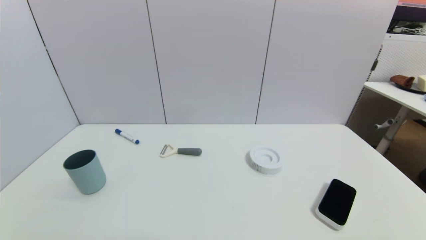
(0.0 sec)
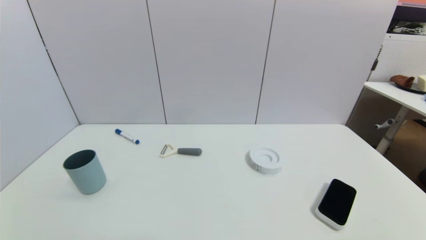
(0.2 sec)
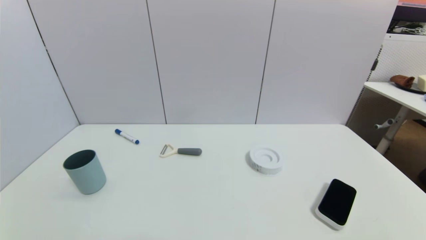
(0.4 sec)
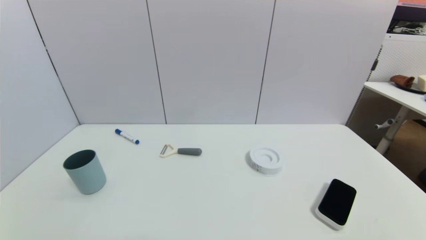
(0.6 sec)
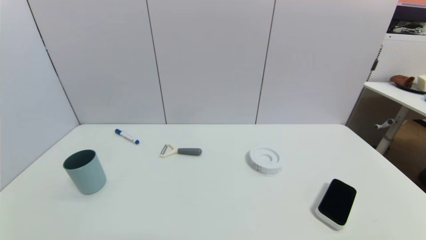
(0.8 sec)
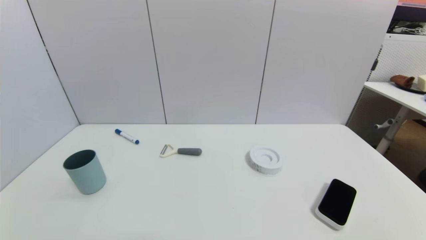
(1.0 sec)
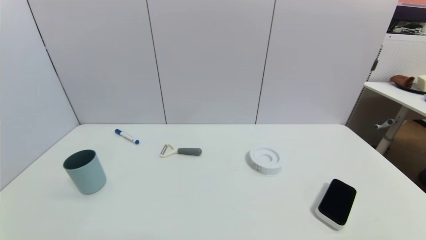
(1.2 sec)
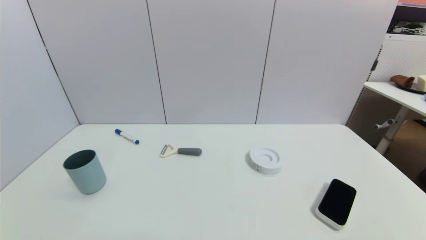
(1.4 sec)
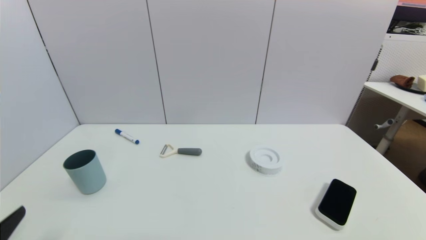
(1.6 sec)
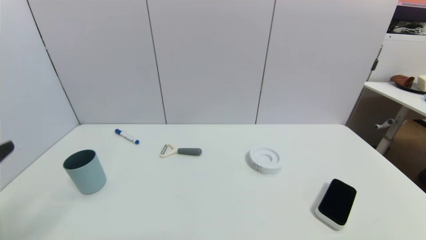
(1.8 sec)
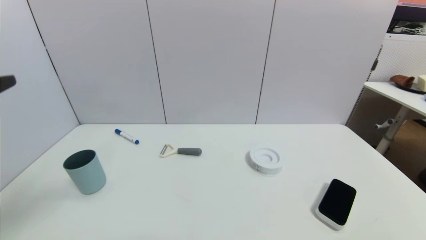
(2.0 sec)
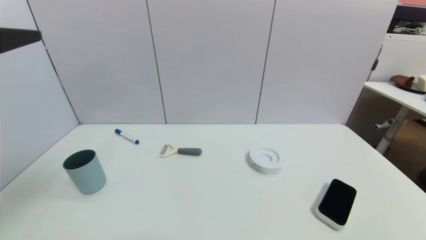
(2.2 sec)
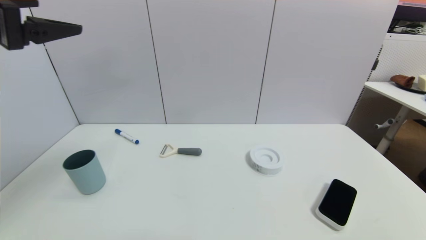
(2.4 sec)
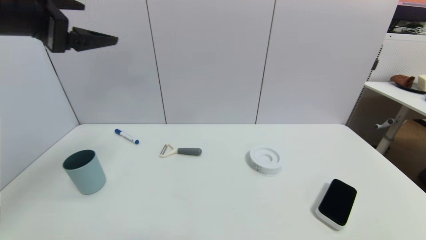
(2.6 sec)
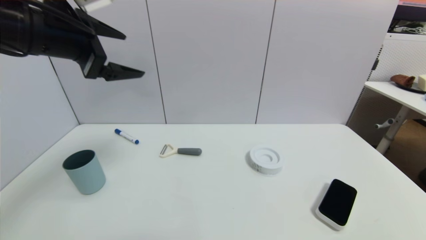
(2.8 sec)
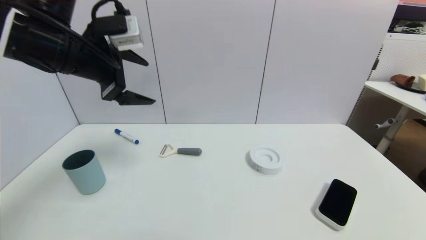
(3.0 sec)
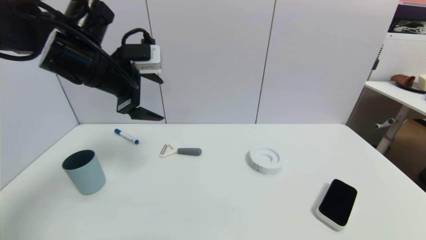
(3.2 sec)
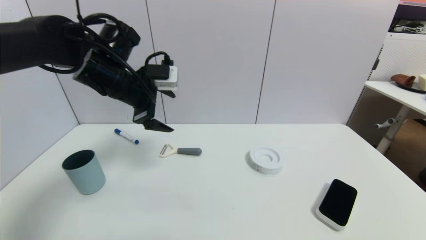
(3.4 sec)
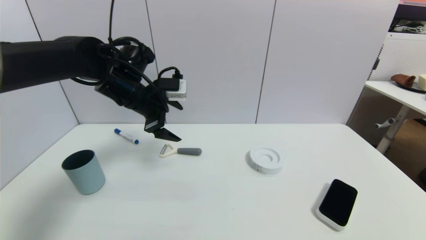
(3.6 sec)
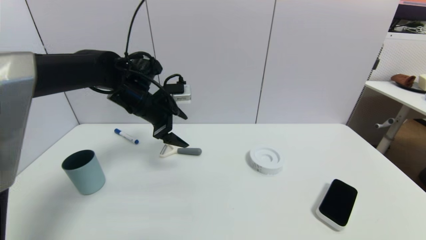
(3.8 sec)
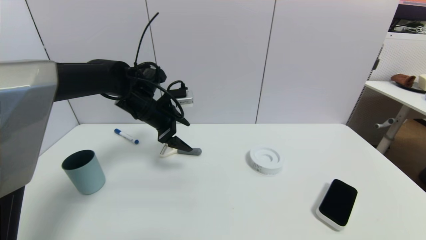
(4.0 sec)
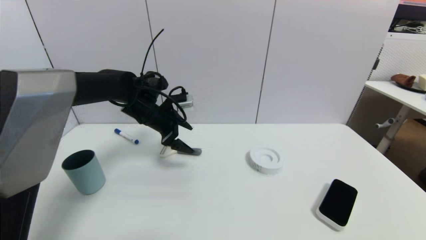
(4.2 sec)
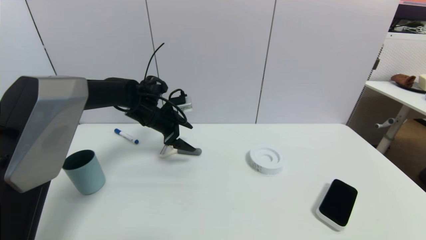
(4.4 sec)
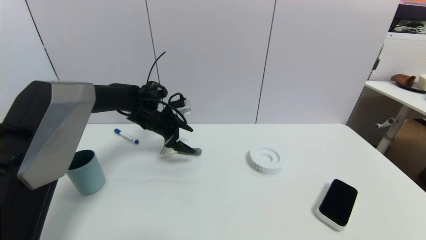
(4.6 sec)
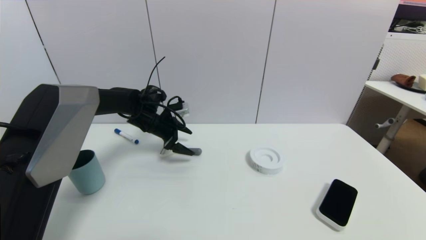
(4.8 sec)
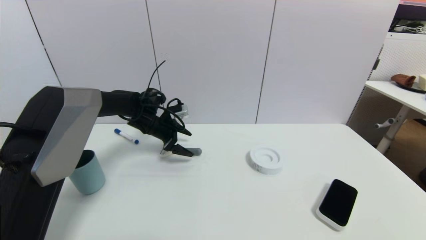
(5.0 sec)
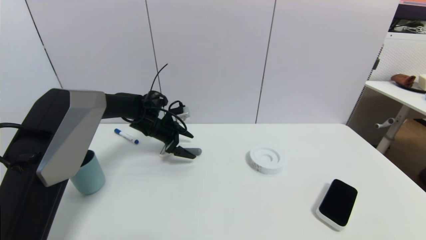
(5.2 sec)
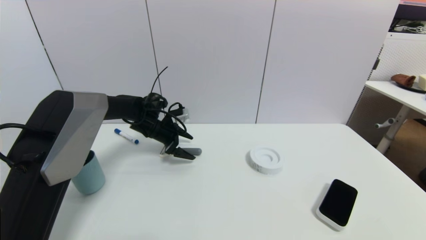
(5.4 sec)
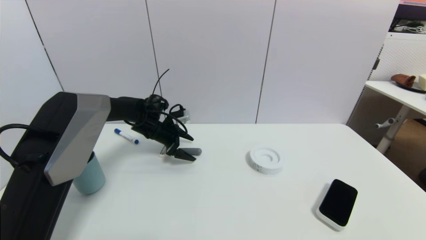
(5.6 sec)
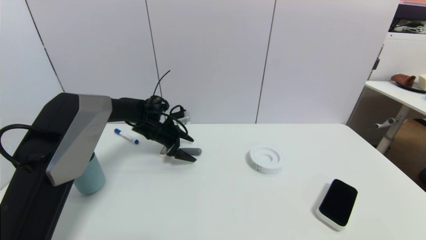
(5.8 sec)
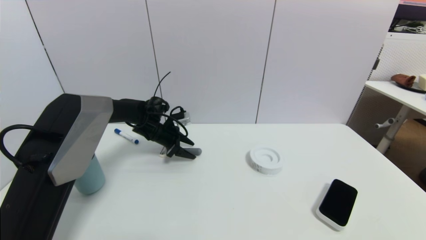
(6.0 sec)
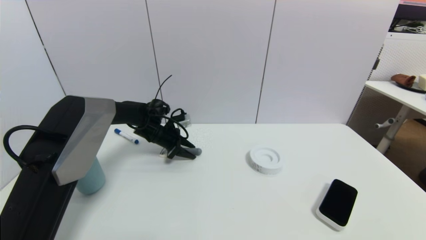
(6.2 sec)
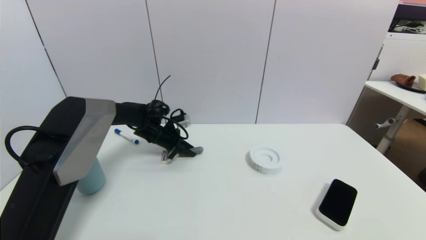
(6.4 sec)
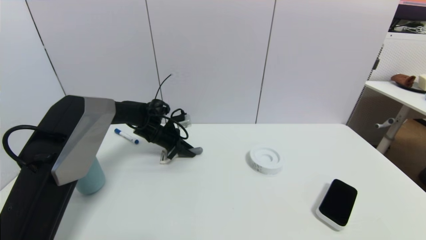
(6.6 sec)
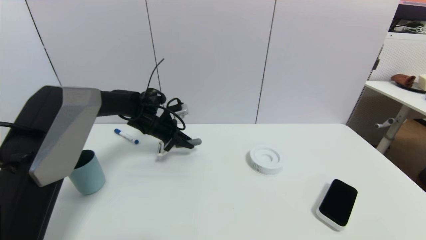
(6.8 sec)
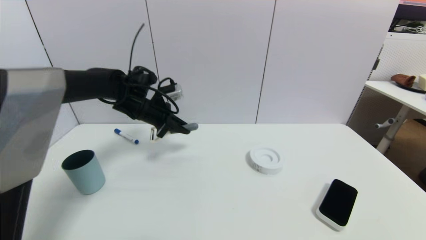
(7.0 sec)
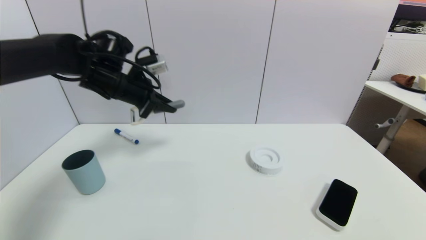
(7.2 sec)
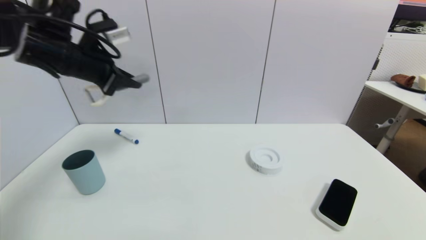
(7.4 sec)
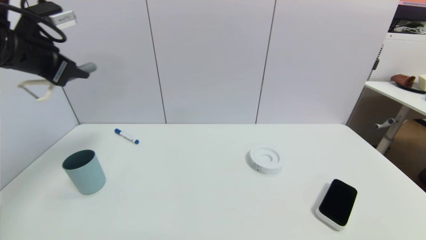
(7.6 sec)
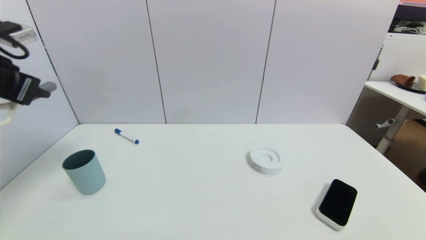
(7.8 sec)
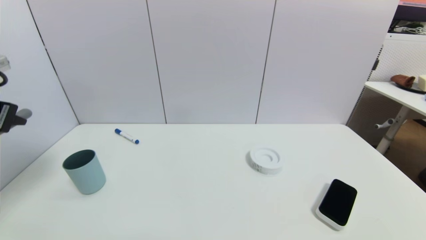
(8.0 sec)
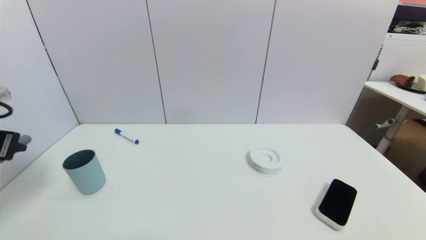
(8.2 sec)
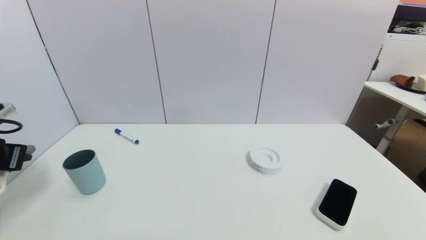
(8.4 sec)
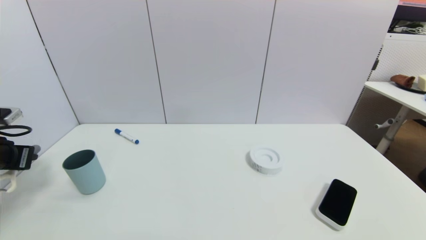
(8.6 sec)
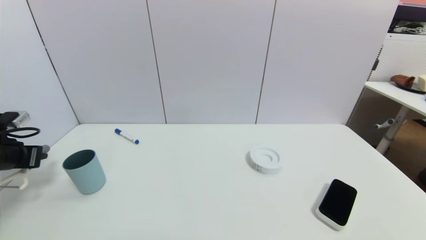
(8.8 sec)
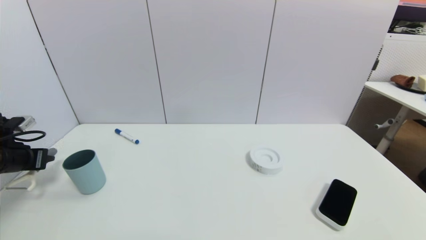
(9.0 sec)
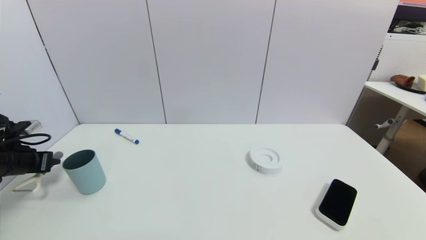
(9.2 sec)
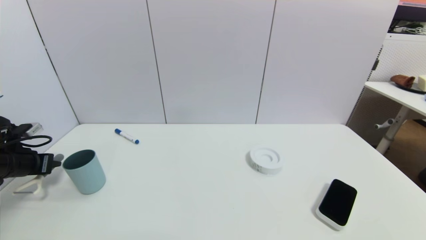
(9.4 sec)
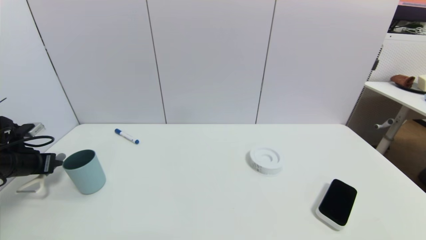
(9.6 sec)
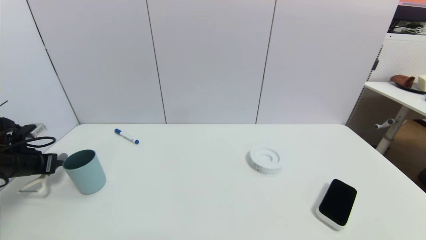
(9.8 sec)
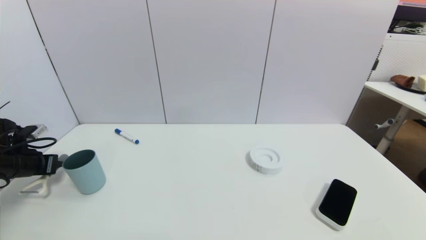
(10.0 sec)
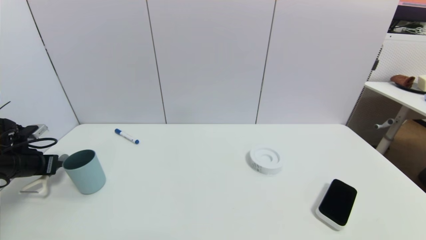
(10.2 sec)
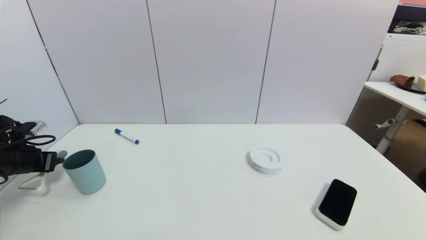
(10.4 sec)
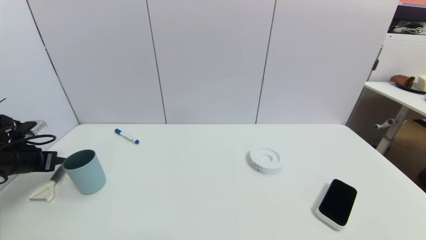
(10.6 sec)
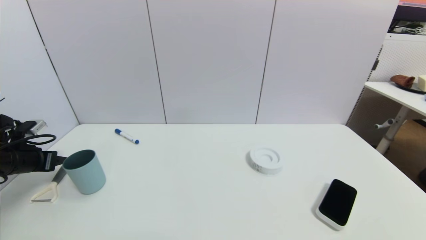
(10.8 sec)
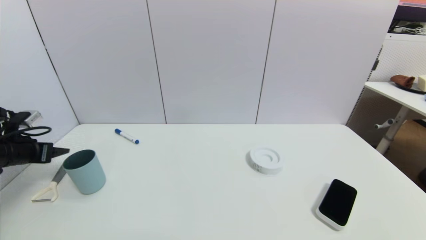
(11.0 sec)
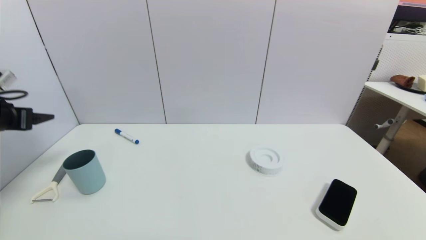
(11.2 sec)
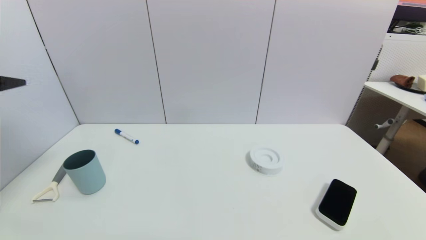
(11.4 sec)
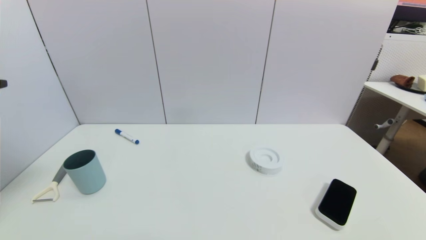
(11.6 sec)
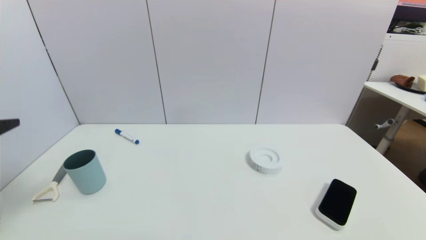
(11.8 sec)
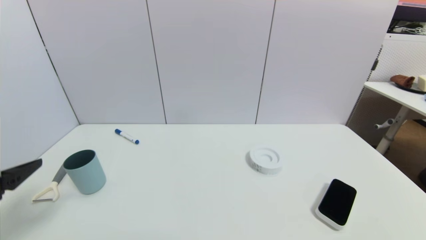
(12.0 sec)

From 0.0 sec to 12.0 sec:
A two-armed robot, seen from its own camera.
Step, from 1.6 sec to 6.8 sec: Grasp the peeler with left gripper.
Step, from 7.0 sec to 10.8 sec: Place the peeler on the table with left gripper.
From 1.6 sec to 3.0 sec: The left gripper heads forward and upward, covering about 30 cm.
From 3.0 sec to 4.4 sec: The left gripper travels downward and forward by about 20 cm.
From 4.4 sec to 6.0 sec: The left gripper is displaced downward by some 5 cm, and closes up.
From 6.0 sec to 7.6 sec: The left gripper travels upward, backward and to the left by approximately 35 cm, and closes its fingers.
From 7.6 sec to 9.0 sec: The left gripper heads downward and to the left, covering some 25 cm.
From 9.0 sec to 10.4 sec: The grippers stay close to where they were, moving slightly.
From 10.4 sec to 12.0 sec: The left gripper heads backward, to the right and upward, covering roughly 25 cm, and opens its fingers.

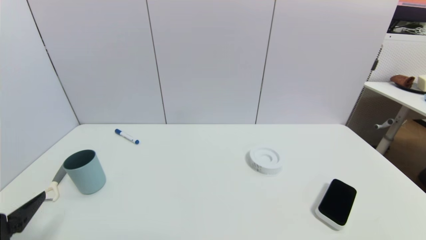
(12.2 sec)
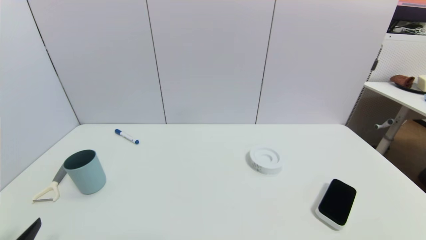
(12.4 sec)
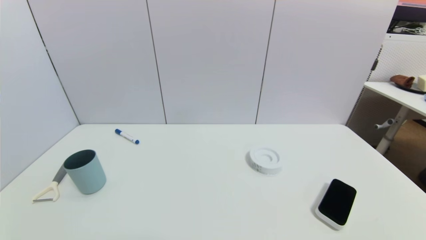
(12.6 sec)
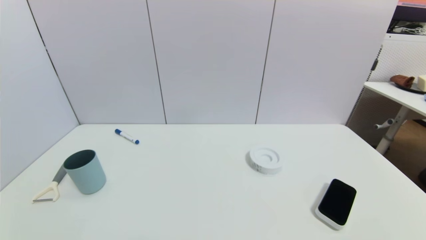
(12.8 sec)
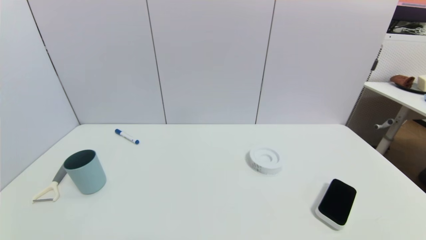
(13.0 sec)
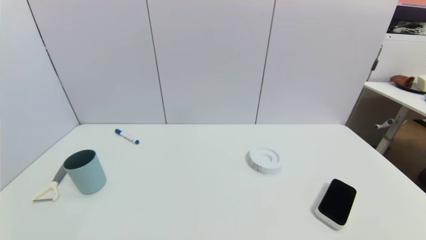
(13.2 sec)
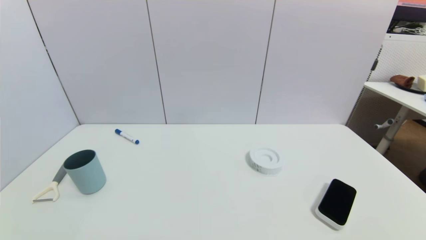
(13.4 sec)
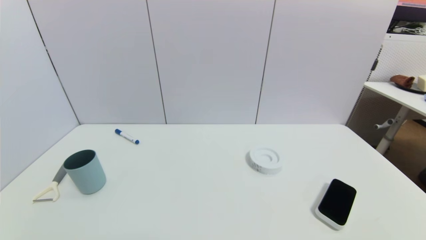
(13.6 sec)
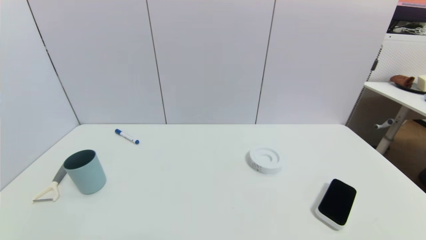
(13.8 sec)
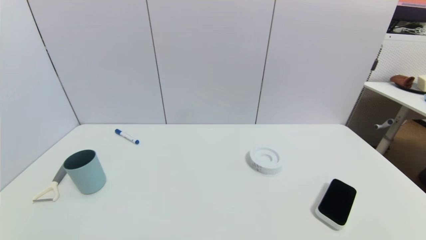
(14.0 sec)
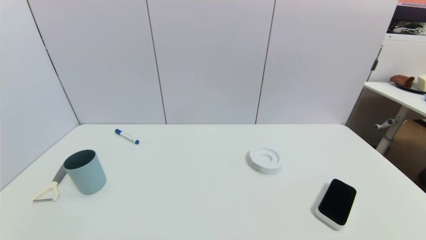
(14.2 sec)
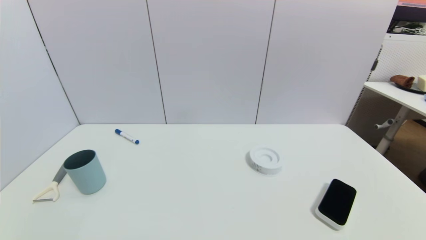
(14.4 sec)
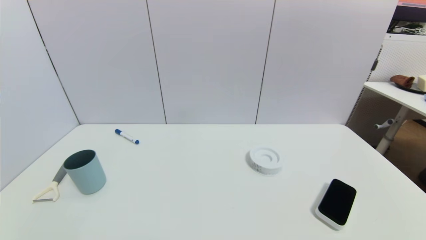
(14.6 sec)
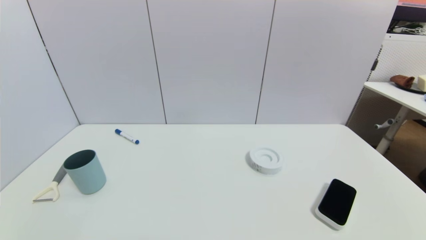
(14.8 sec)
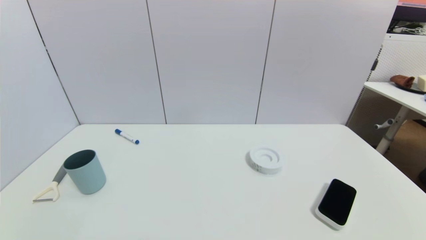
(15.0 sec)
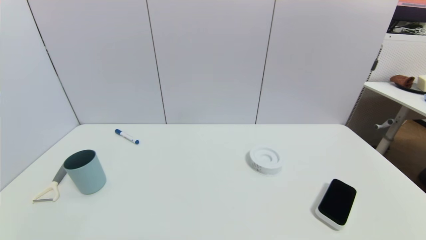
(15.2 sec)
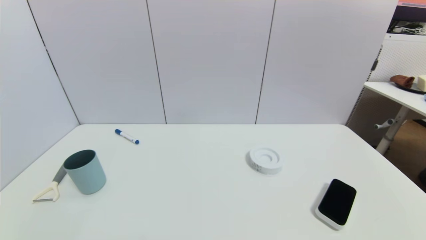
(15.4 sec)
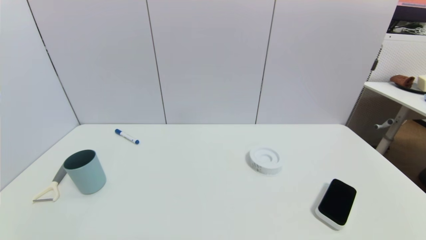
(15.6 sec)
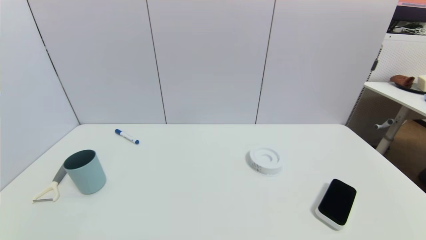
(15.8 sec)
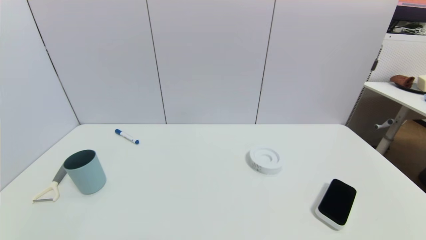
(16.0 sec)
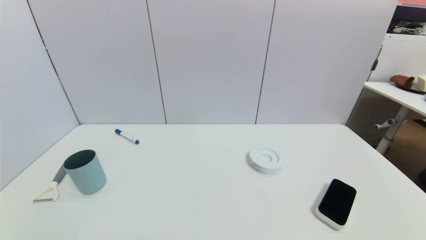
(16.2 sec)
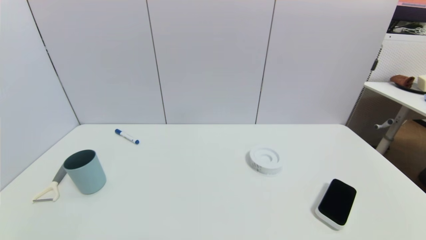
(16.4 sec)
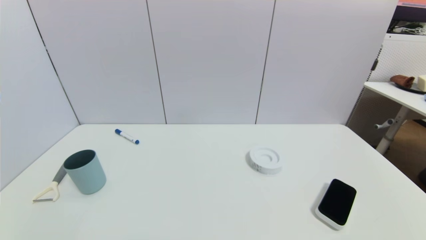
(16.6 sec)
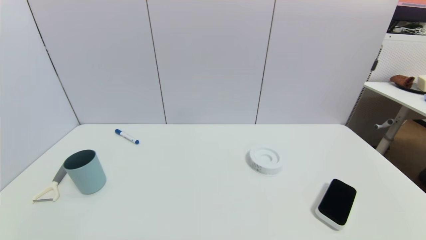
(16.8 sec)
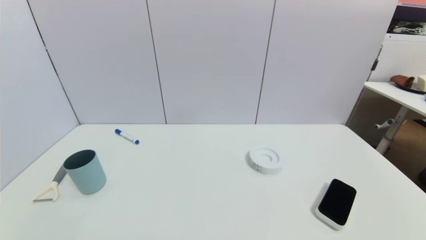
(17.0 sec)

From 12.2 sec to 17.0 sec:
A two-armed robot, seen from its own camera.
From 12.2 sec to 13.8 sec: The left gripper travels downward and backward by about 15 cm.
From 13.8 sec to 17.0 sec: The two grippers keep their place.
